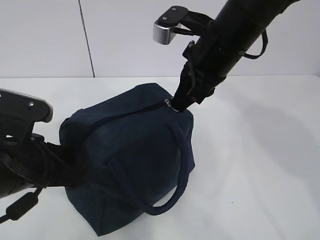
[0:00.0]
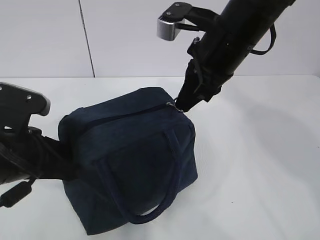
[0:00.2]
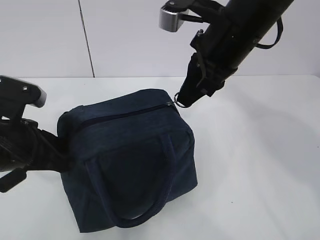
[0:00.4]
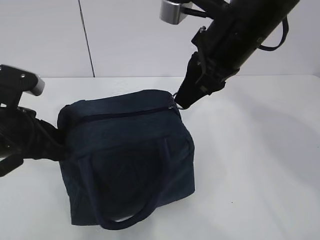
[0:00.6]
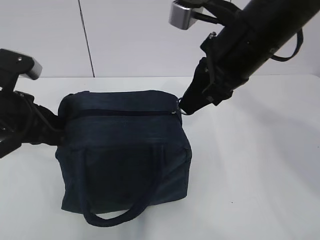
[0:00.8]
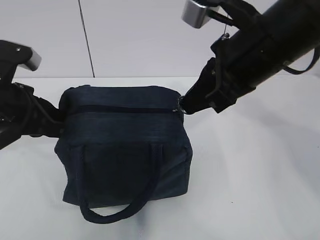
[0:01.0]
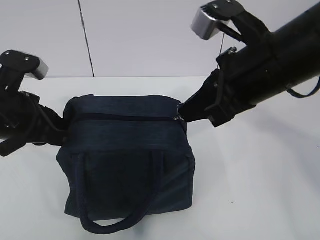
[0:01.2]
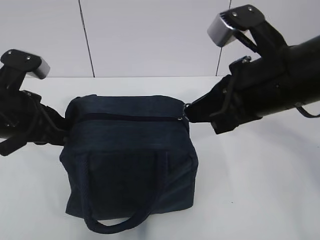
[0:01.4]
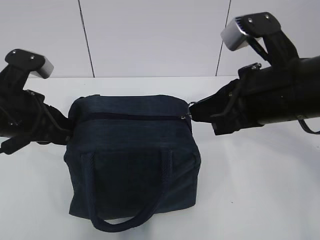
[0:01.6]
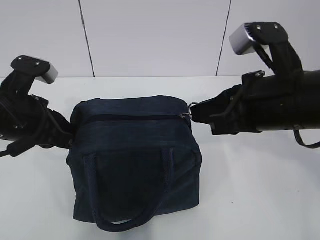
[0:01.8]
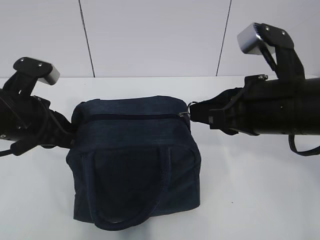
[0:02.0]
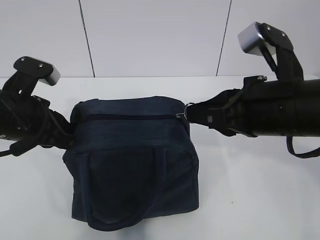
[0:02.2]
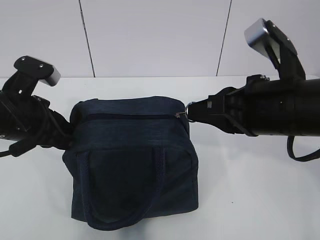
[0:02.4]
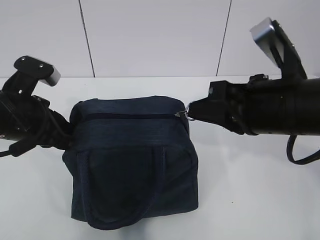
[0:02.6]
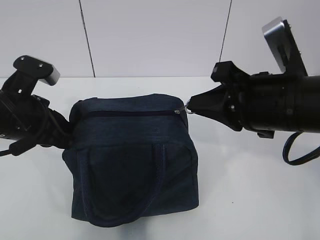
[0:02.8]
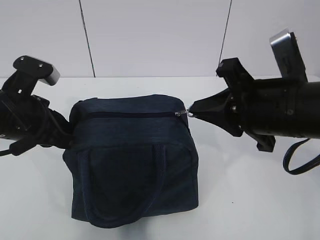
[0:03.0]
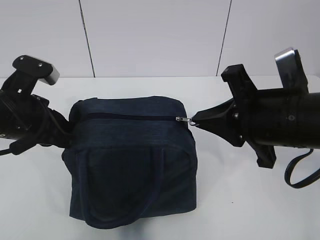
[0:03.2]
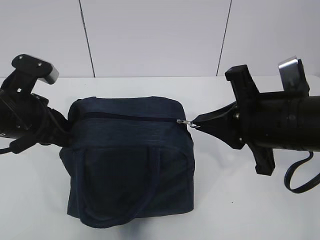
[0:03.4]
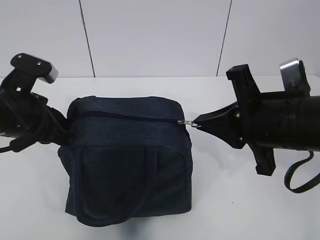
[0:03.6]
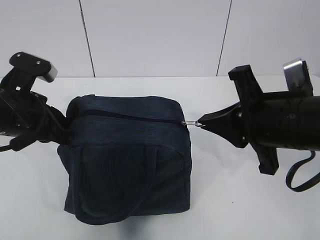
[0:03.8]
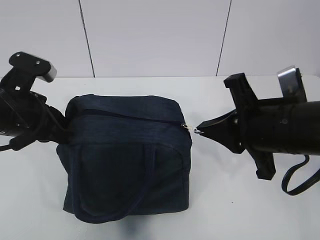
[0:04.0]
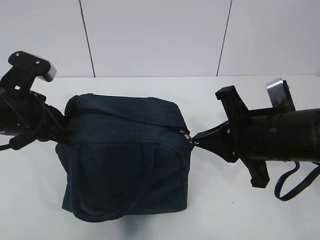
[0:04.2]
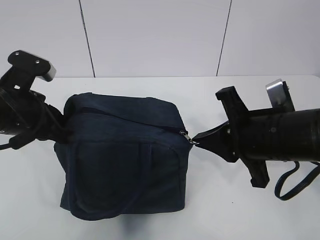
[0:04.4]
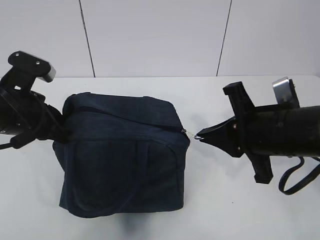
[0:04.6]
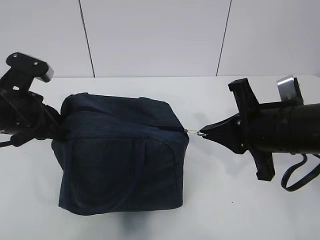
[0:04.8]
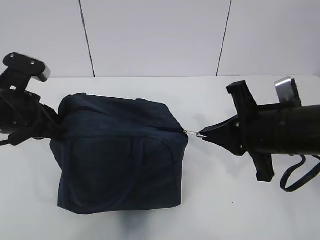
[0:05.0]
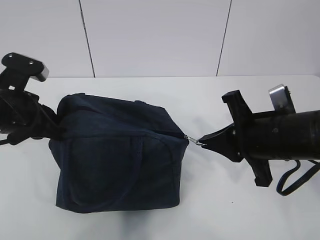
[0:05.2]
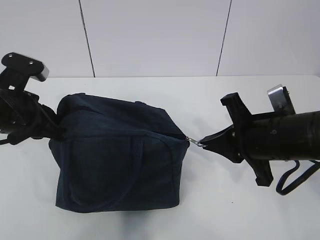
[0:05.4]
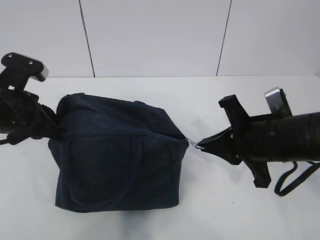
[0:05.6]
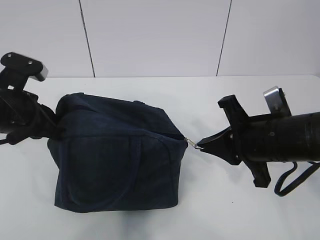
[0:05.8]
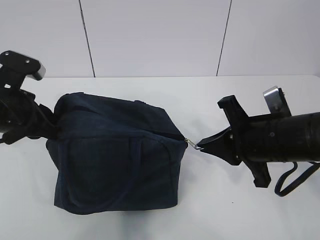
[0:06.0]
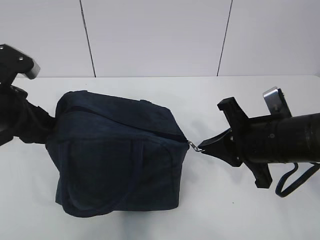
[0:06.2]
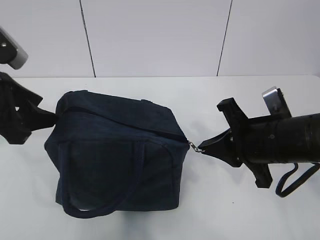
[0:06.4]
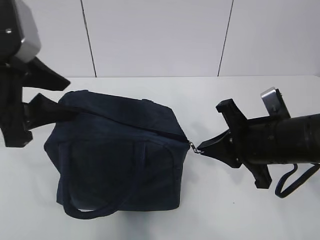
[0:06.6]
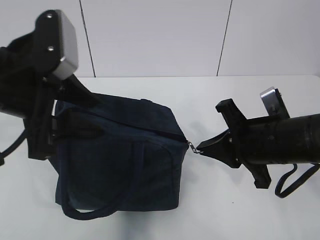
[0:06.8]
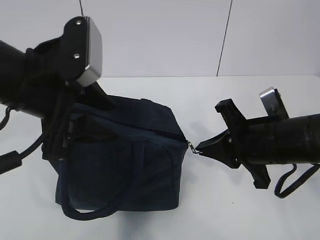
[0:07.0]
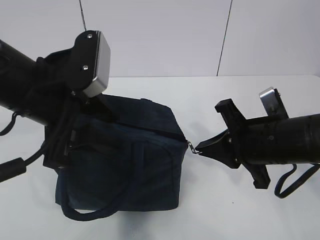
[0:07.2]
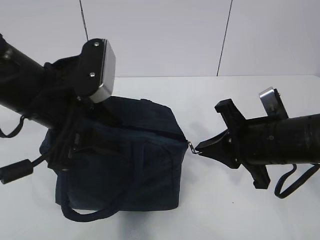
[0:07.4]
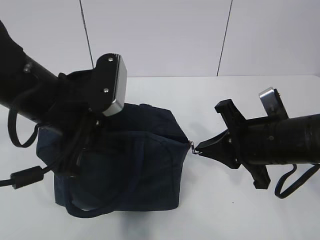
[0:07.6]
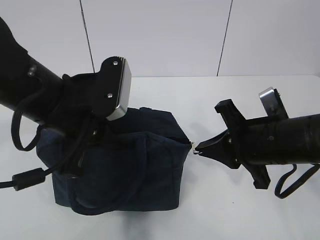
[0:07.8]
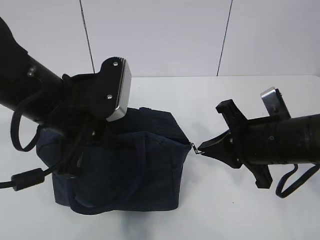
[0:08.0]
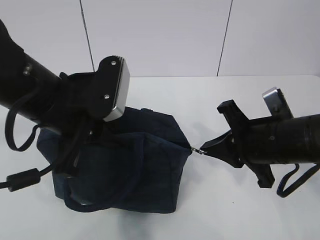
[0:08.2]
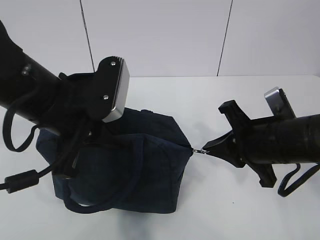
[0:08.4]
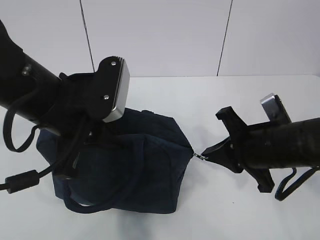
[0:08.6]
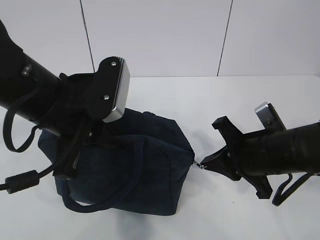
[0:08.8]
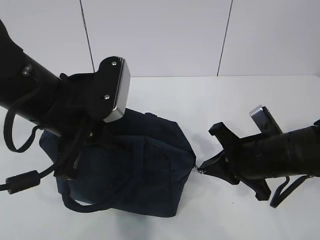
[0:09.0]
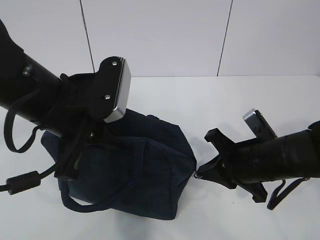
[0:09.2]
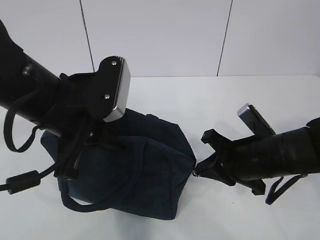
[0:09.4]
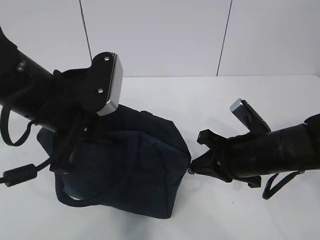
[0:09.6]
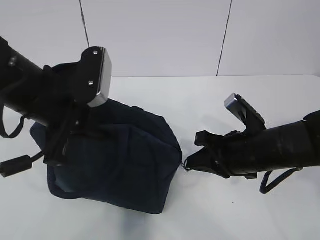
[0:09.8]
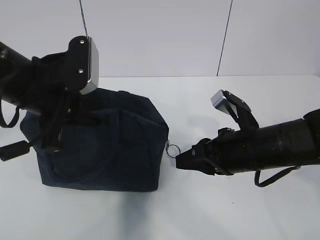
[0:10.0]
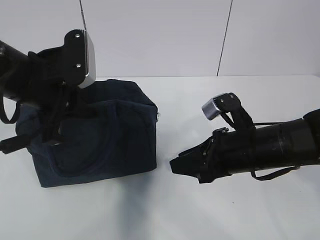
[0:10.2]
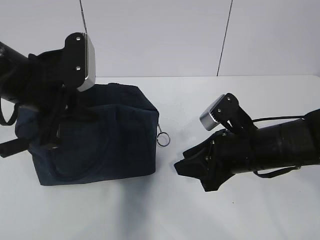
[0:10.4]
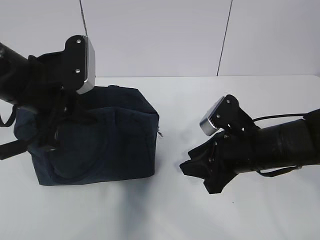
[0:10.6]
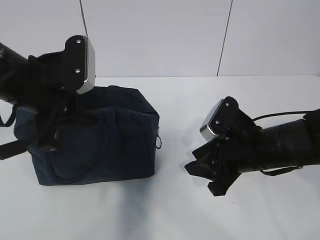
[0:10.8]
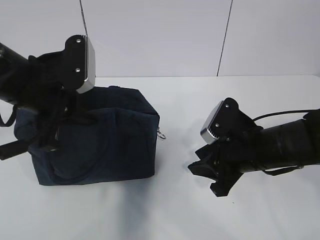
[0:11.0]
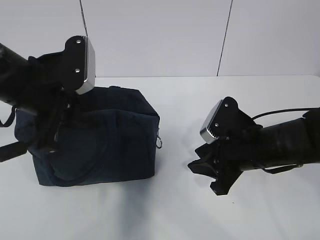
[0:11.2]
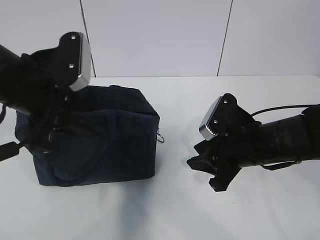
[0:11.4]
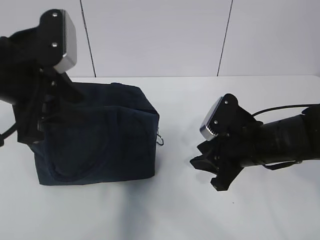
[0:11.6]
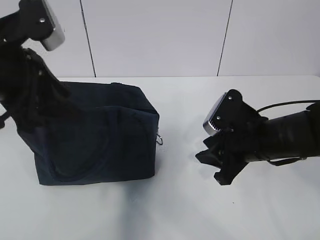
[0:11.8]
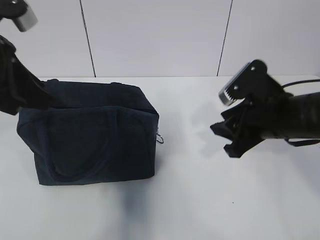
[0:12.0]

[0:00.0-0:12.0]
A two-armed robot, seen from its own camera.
0:00.0 to 0:01.6: The right gripper is displaced backward by roughly 10 cm, while the left gripper is displaced forward by approximately 5 cm.
0:04.4 to 0:06.0: The grippers make only small movements.
0:06.0 to 0:07.6: The left gripper moves to the right, some 10 cm, and opens its fingers.
0:07.6 to 0:09.0: The left gripper closes up.
0:09.0 to 0:10.4: The right gripper opens up; the left gripper moves some 5 cm.
0:10.4 to 0:12.0: The right gripper ends up some 5 cm from where it was, while the left gripper travels upward by approximately 5 cm, and opens.

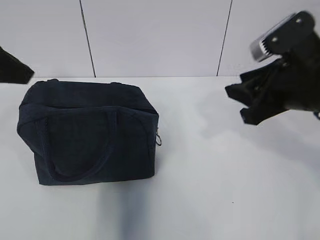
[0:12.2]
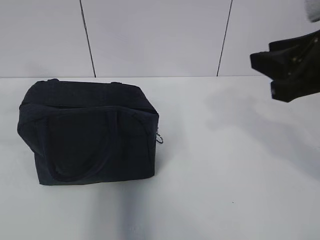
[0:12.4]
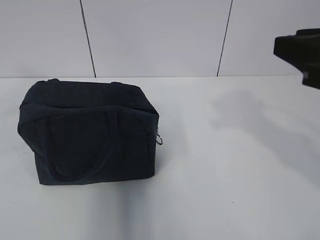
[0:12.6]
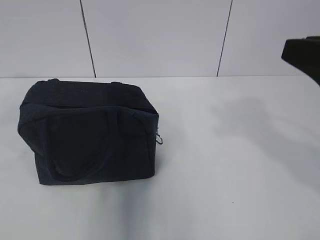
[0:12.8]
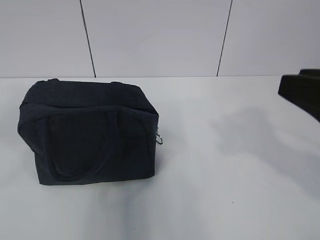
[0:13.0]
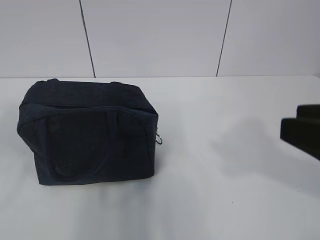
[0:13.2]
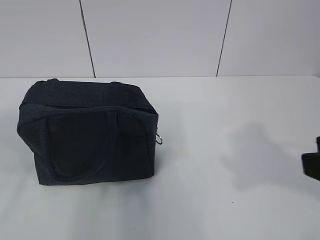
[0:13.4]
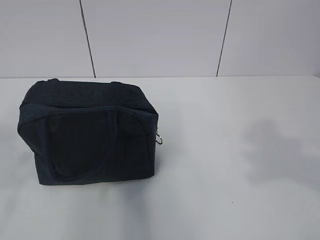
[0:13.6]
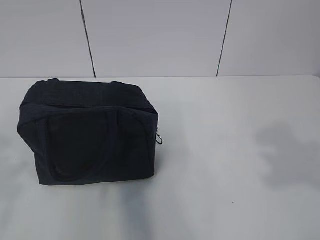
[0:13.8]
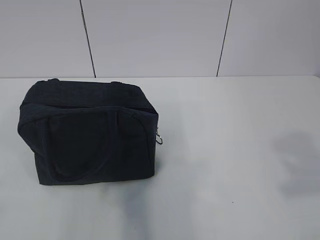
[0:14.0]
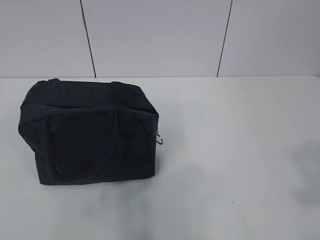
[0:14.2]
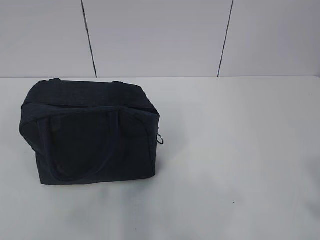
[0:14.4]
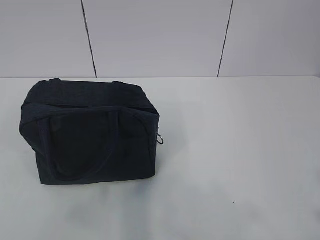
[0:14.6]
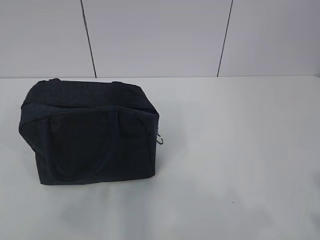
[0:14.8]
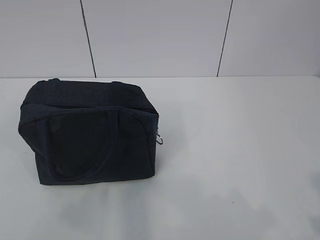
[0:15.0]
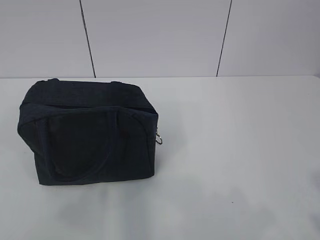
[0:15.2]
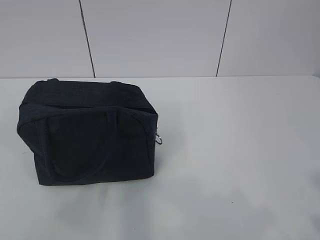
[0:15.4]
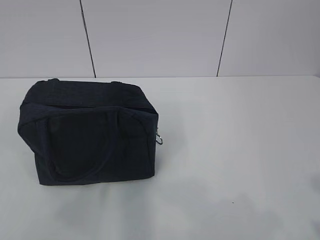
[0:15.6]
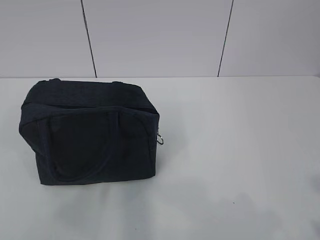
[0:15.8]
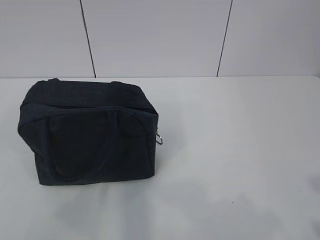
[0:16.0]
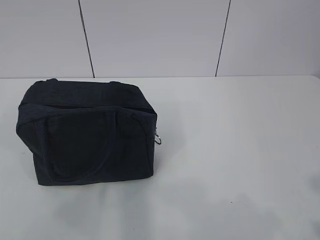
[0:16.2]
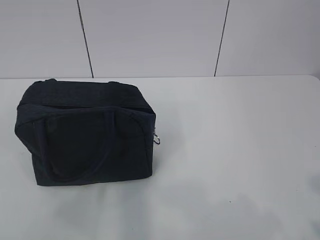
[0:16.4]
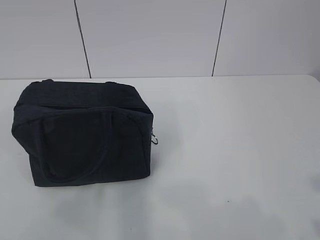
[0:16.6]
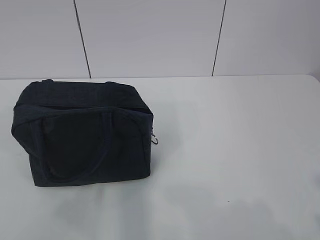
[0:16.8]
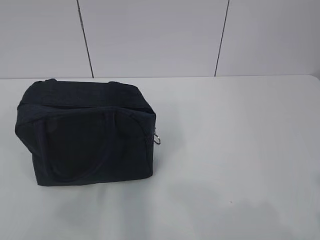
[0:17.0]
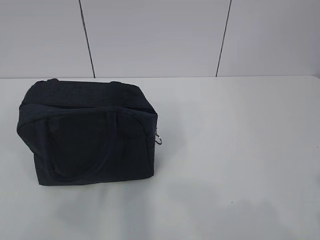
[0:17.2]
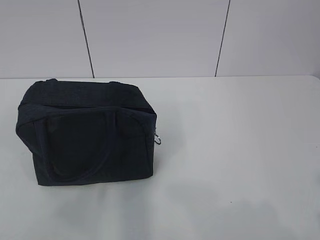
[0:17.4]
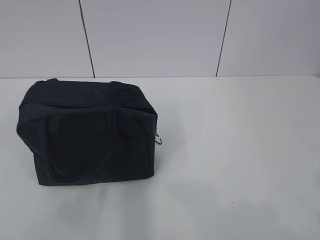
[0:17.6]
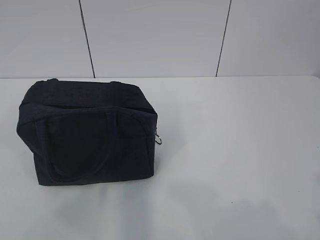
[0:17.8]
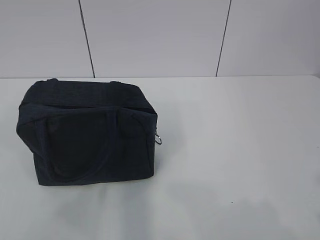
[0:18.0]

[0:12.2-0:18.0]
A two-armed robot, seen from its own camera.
0:12.2 to 0:13.6: Both grippers move backward, some 20 cm.
0:13.6 to 0:15.0: The right gripper goes some 10 cm backward and to the right. The left gripper heads downward, covering some 5 cm.
0:15.0 to 0:18.0: There are only small adjustments of the grippers.

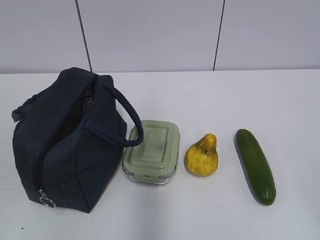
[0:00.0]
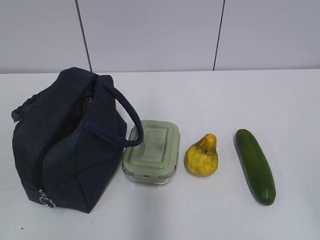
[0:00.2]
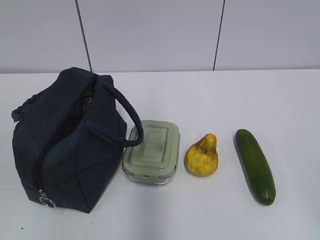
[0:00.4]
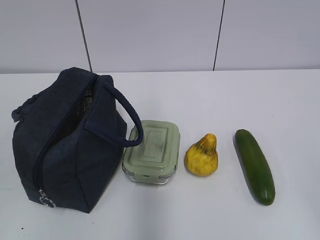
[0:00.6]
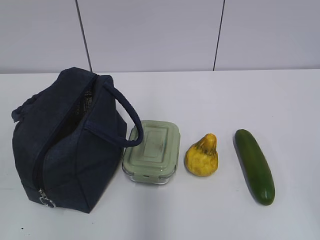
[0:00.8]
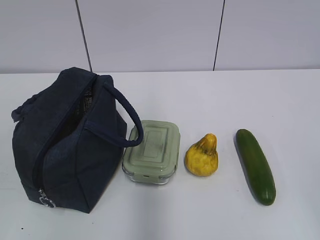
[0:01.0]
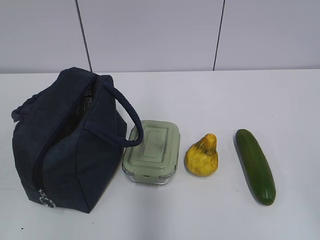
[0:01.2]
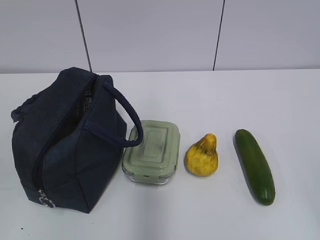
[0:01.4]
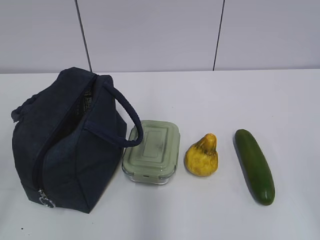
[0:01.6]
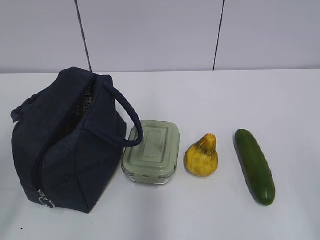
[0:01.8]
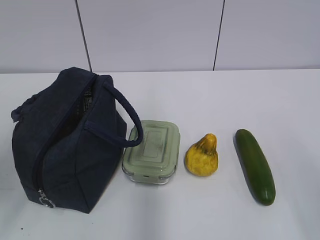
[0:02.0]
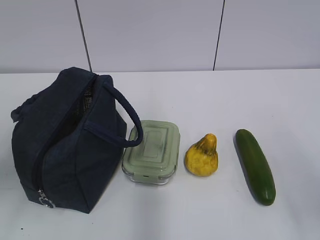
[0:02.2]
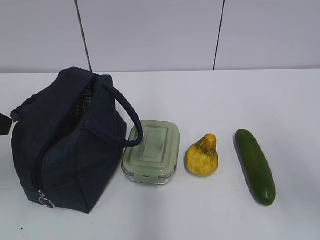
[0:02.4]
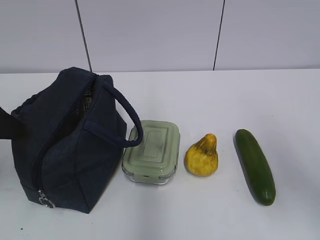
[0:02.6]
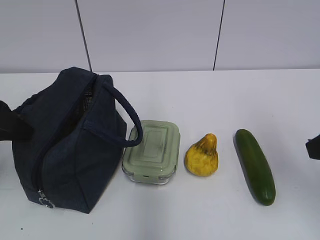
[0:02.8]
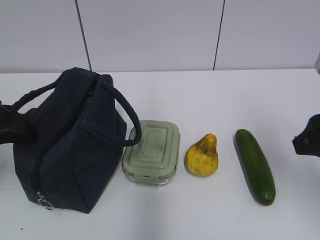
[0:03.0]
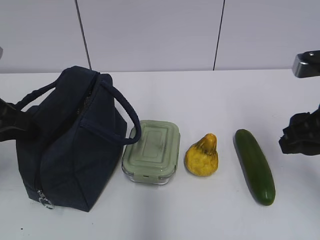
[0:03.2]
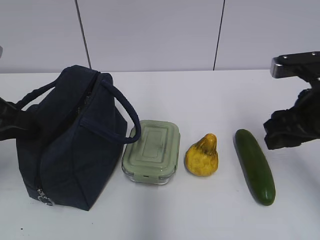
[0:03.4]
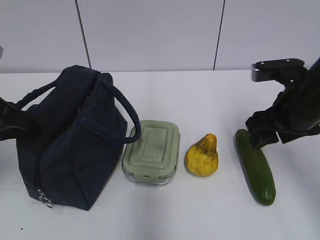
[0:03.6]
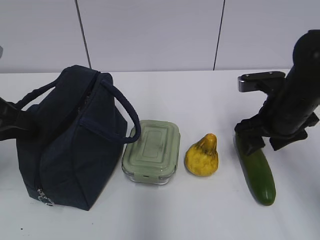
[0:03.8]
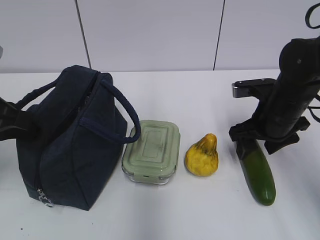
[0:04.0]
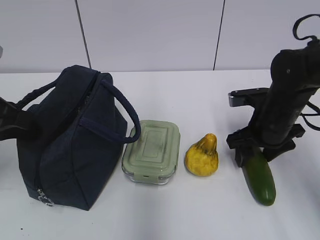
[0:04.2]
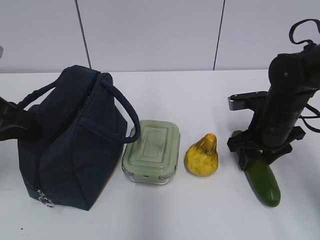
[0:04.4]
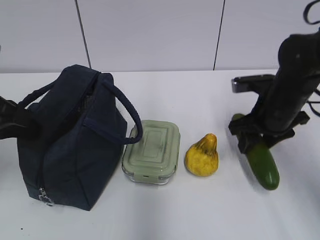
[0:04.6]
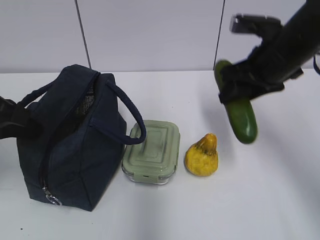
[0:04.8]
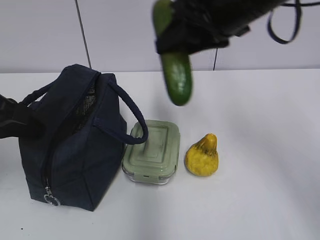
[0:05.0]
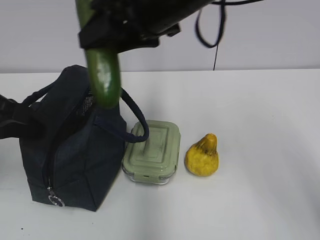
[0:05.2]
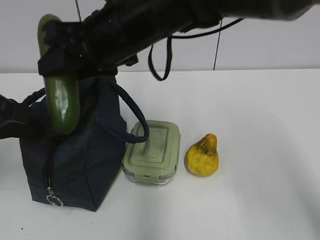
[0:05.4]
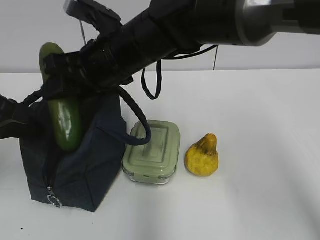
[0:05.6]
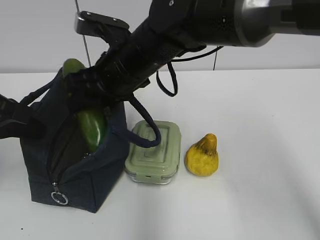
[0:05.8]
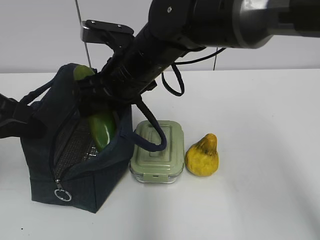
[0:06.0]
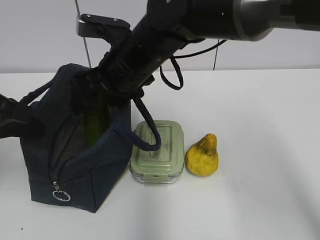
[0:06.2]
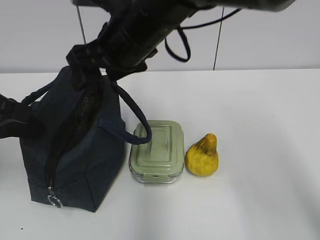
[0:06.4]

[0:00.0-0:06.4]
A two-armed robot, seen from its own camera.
0:01.6 to 0:03.2: The two grippers go approximately 20 cm forward. The left gripper closes its fingers.
0:03.2 to 0:04.8: The right gripper moves forward and to the left, some 10 cm, and moves some 10 cm downward and comes back.
0:04.8 to 0:06.4: The right gripper moves to the left, some 15 cm.
